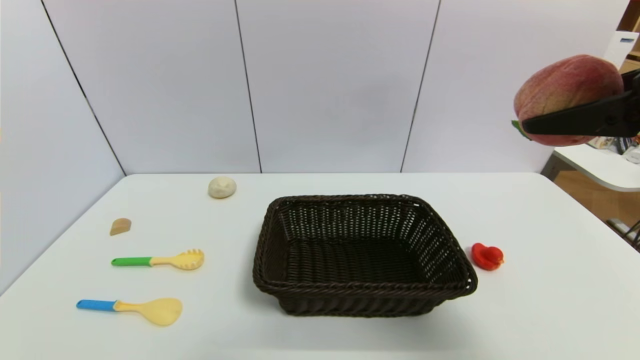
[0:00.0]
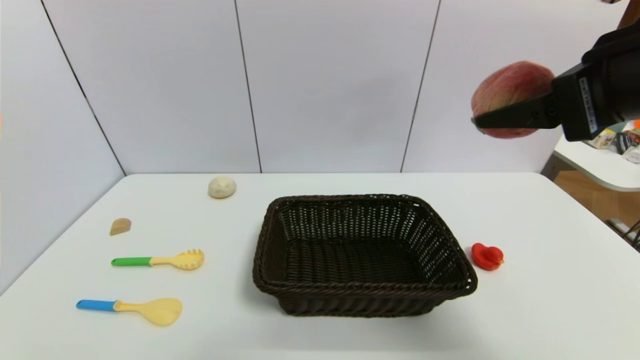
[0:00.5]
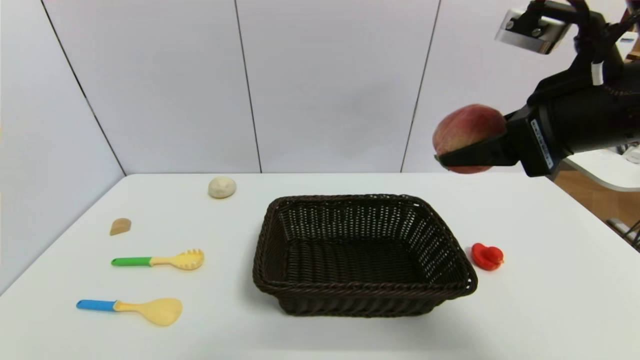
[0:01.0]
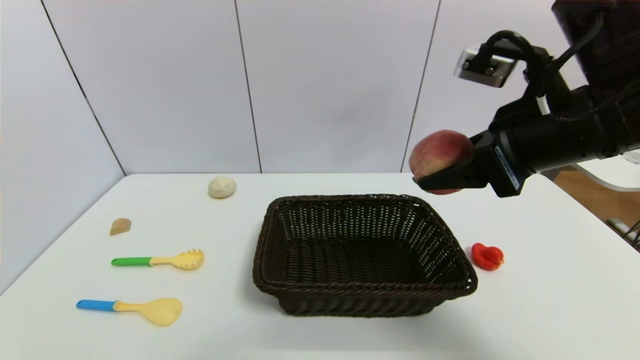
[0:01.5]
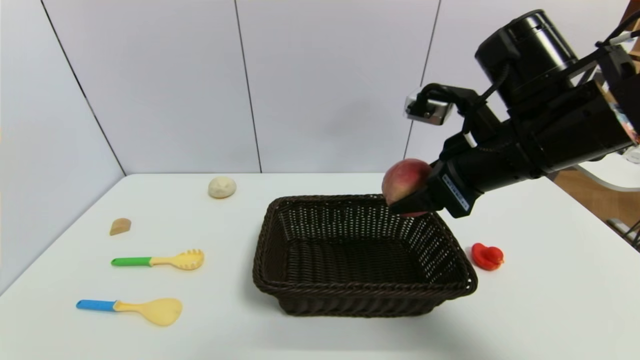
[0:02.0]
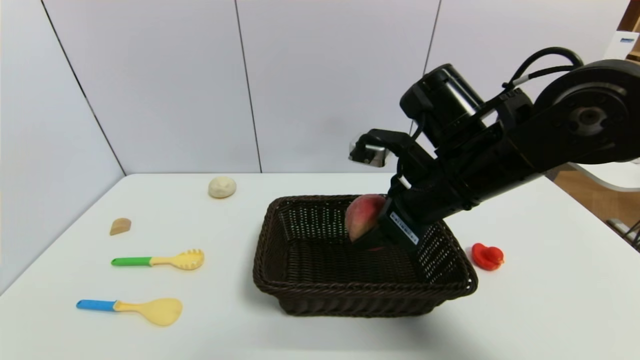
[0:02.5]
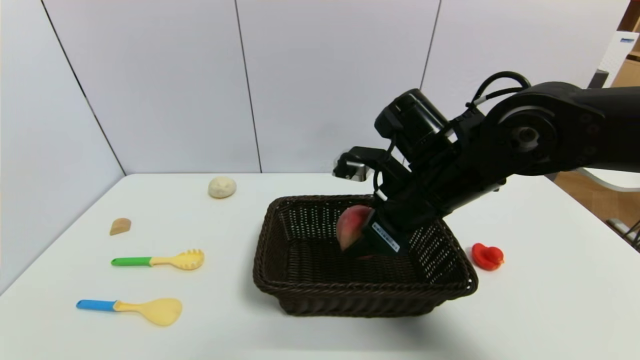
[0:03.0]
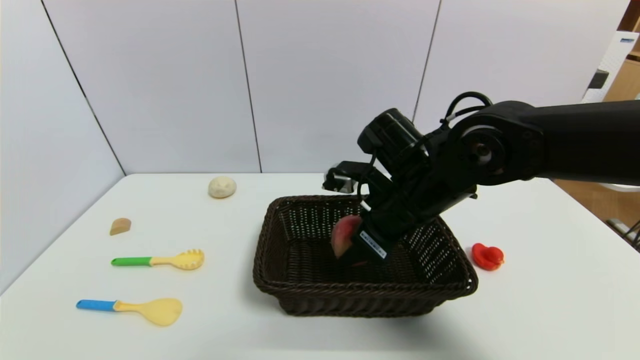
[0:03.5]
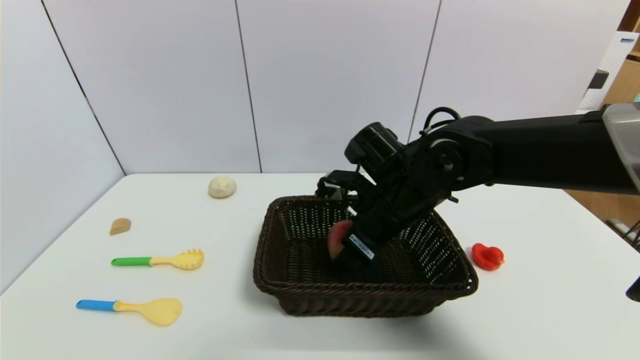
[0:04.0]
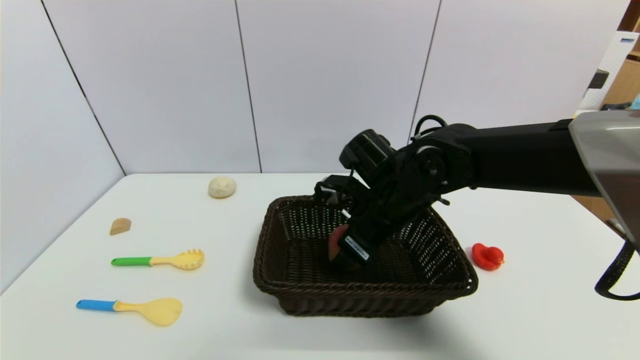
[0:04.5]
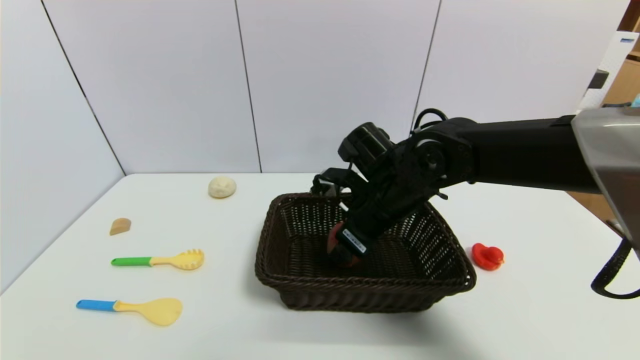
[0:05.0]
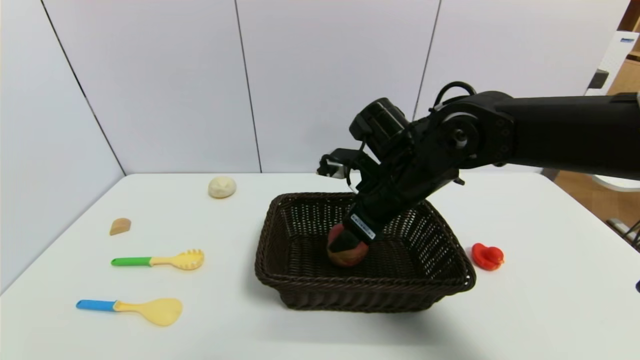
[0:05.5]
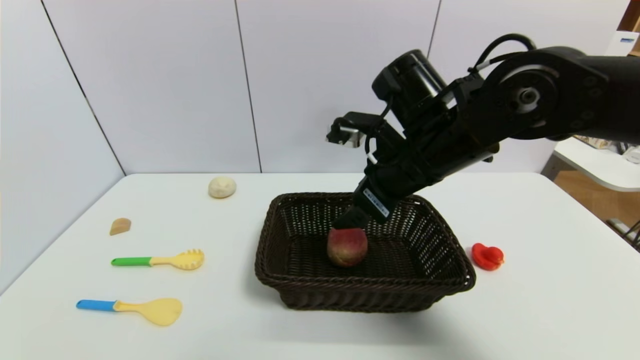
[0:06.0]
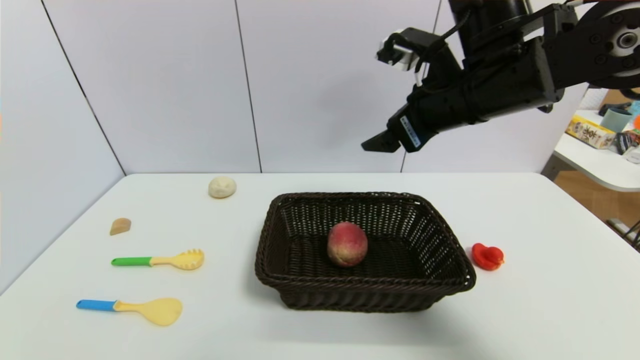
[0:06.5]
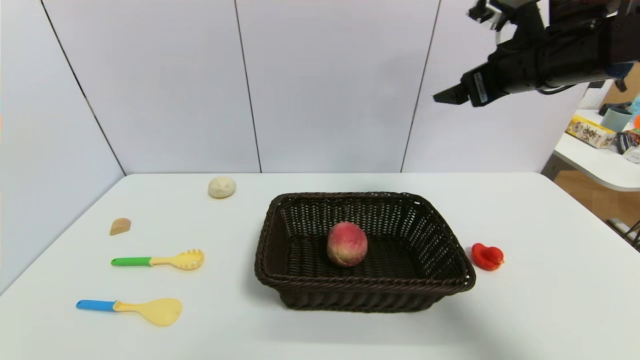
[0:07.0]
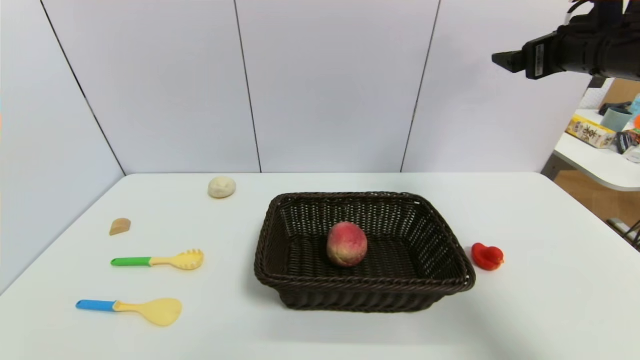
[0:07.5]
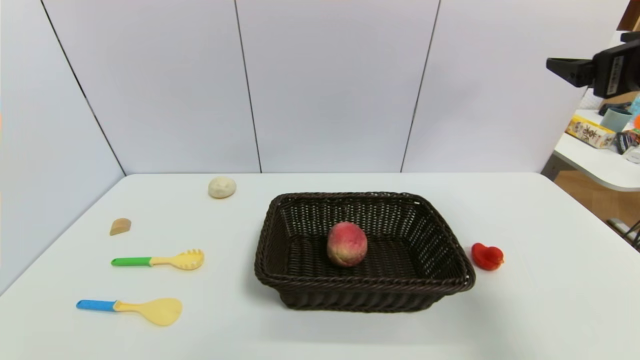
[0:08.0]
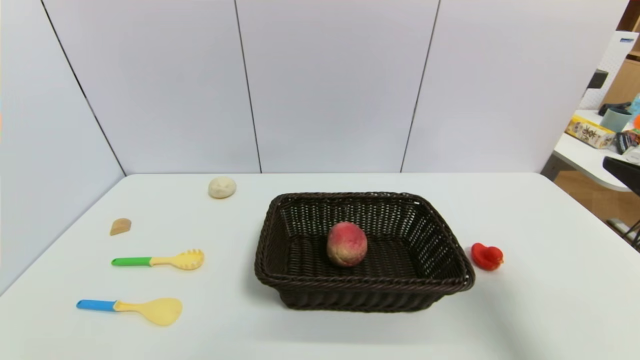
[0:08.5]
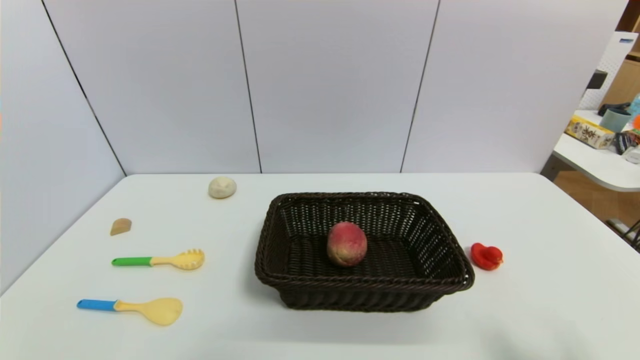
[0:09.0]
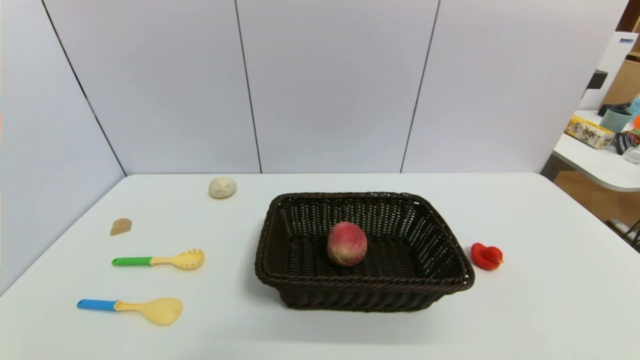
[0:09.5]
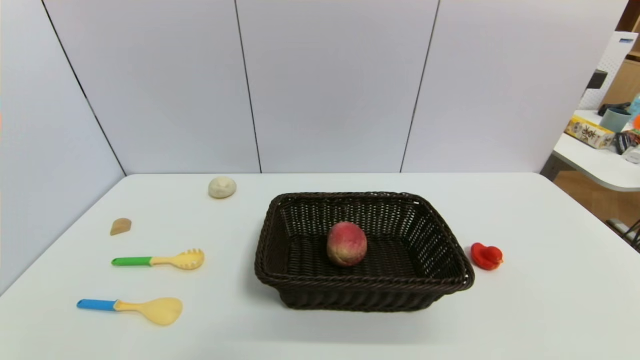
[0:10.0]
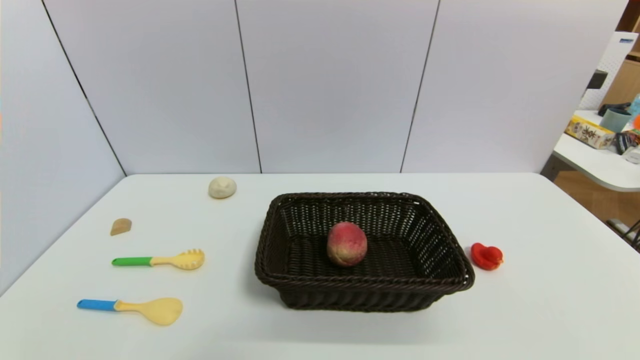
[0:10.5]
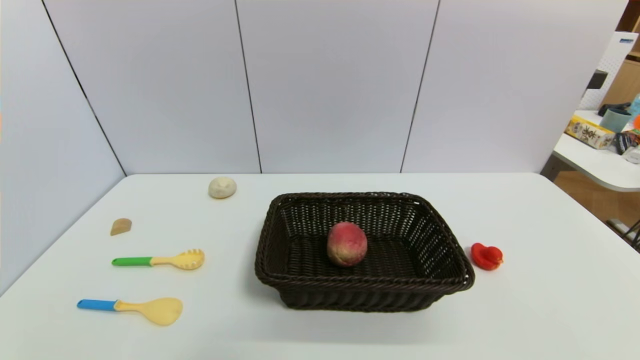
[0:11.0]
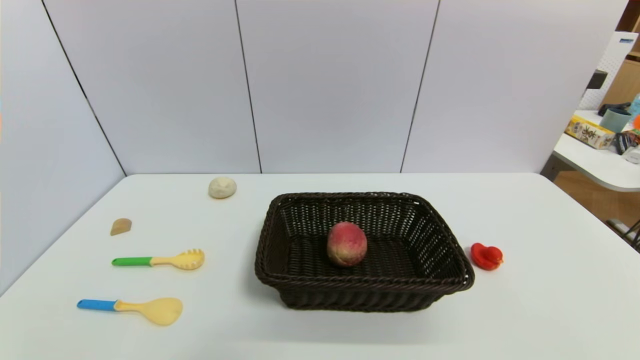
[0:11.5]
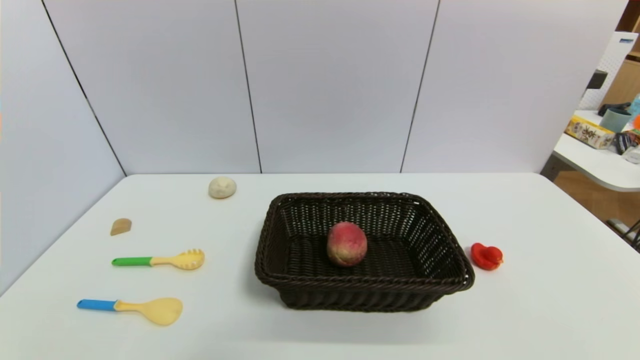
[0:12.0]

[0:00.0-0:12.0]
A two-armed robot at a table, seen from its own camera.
Task of the whole recording: use a gripper to pick the target object and place on the brown basket.
Step, 0:00.0 to 0:06.0: Place the peach slice into the basket with the right gripper.
0:00.0 to 0:02.0: The right gripper heads forward, downward and to the left, covering about 15 cm.
0:02.0 to 0:04.0: The right gripper is displaced downward, to the left and forward by approximately 15 cm.
0:04.0 to 0:06.0: The right gripper heads upward, covering approximately 10 cm, and opens its fingers.
0:06.0 to 0:08.0: The right gripper goes about 25 cm to the right.
0:08.0 to 0:10.0: The right gripper is displaced backward and downward by about 35 cm.
